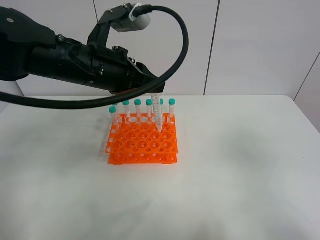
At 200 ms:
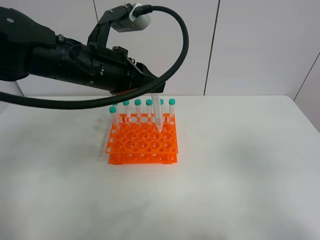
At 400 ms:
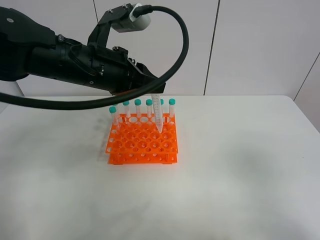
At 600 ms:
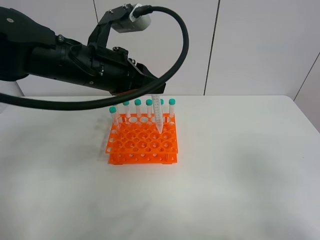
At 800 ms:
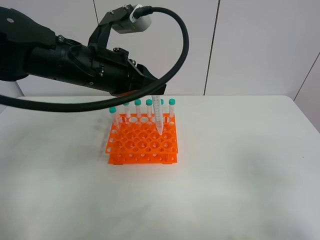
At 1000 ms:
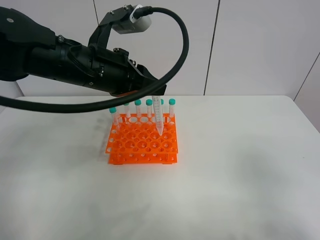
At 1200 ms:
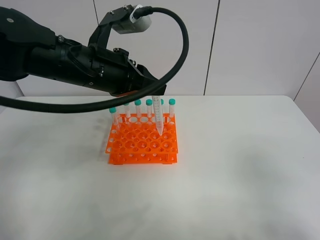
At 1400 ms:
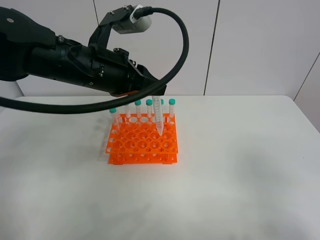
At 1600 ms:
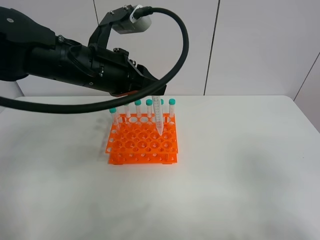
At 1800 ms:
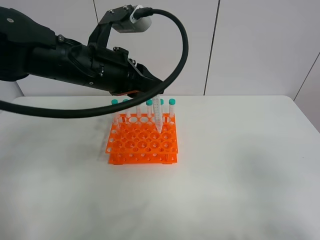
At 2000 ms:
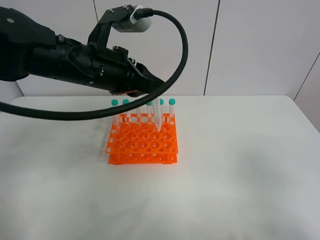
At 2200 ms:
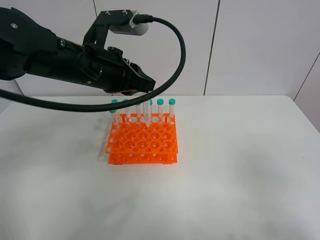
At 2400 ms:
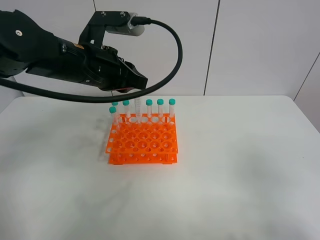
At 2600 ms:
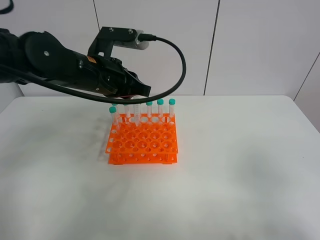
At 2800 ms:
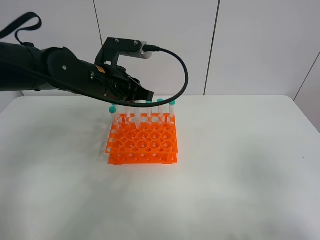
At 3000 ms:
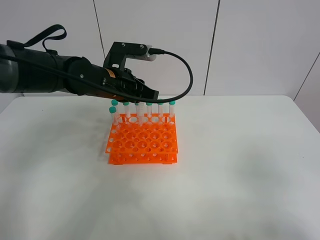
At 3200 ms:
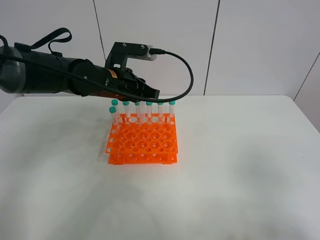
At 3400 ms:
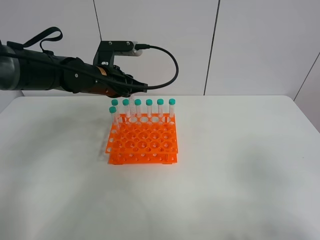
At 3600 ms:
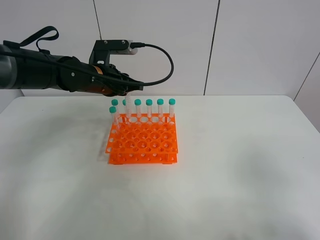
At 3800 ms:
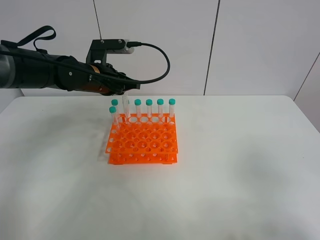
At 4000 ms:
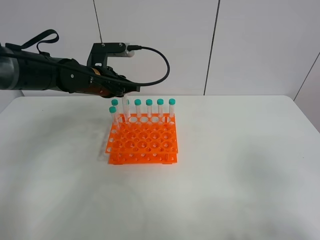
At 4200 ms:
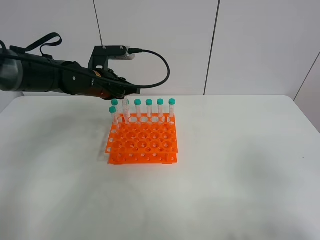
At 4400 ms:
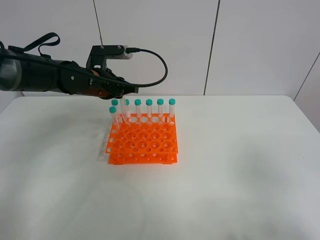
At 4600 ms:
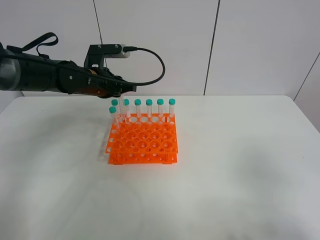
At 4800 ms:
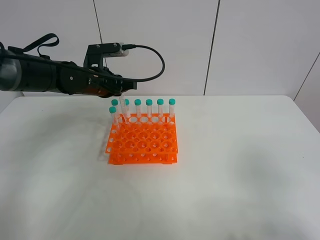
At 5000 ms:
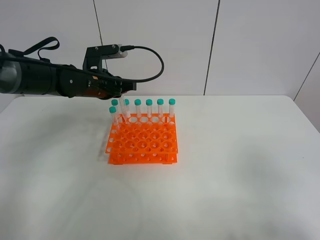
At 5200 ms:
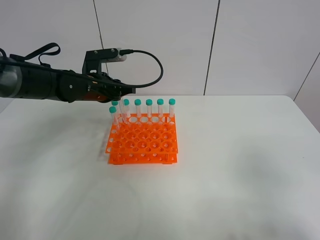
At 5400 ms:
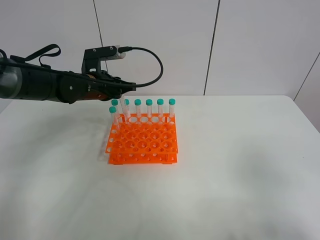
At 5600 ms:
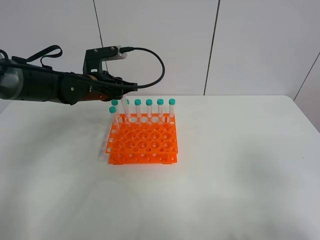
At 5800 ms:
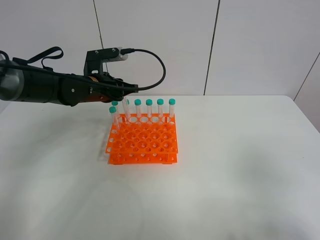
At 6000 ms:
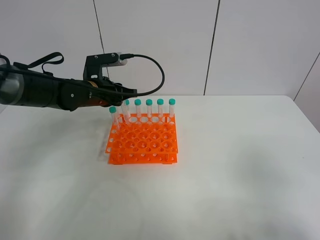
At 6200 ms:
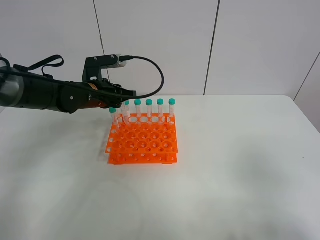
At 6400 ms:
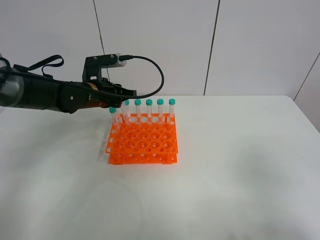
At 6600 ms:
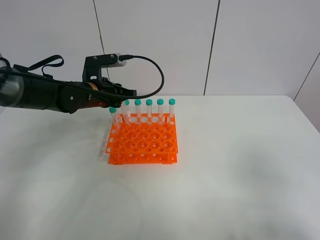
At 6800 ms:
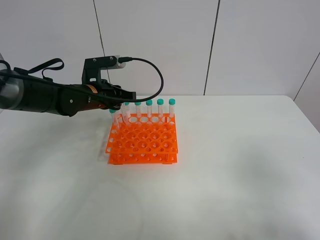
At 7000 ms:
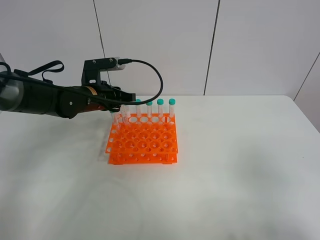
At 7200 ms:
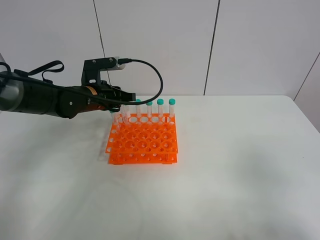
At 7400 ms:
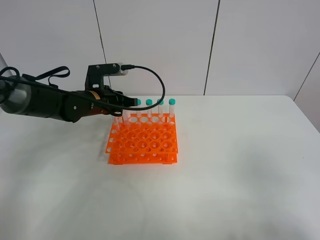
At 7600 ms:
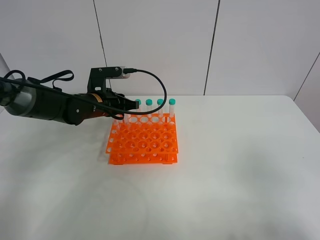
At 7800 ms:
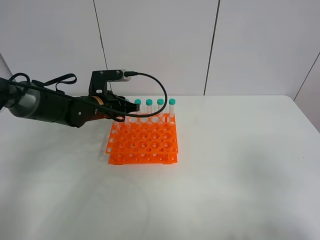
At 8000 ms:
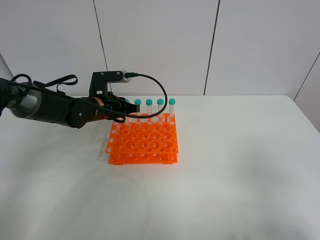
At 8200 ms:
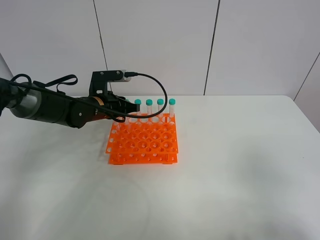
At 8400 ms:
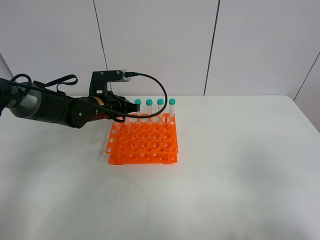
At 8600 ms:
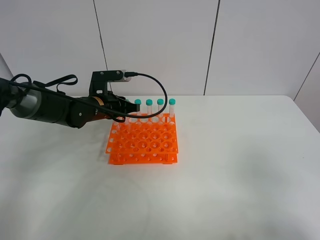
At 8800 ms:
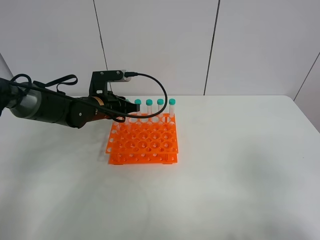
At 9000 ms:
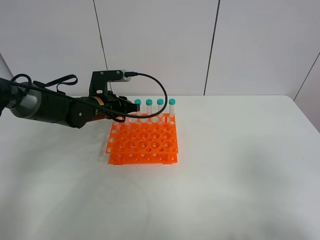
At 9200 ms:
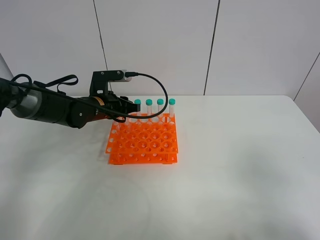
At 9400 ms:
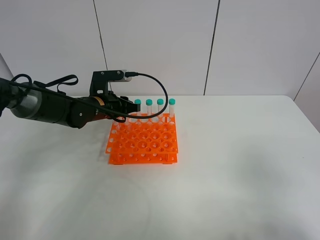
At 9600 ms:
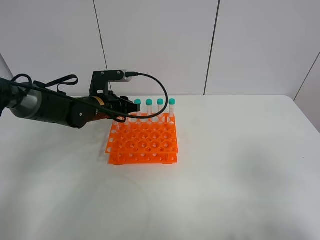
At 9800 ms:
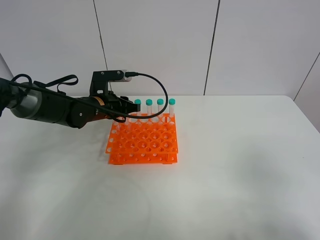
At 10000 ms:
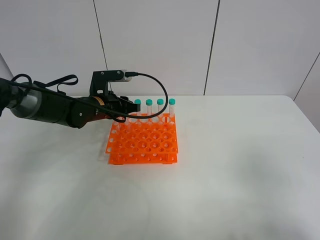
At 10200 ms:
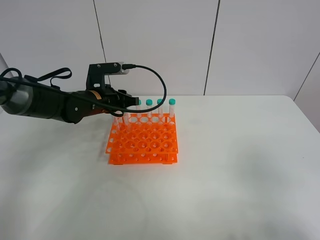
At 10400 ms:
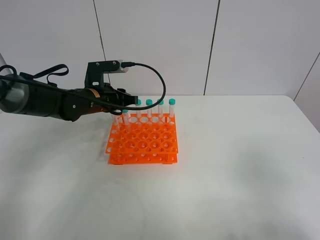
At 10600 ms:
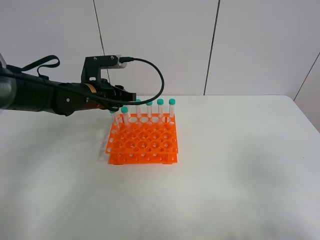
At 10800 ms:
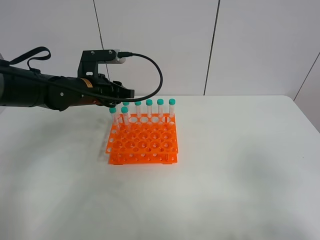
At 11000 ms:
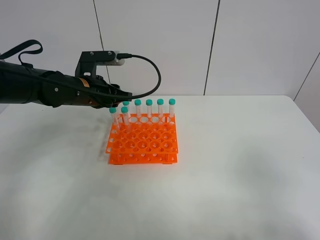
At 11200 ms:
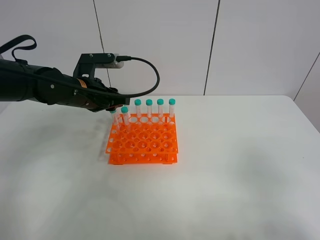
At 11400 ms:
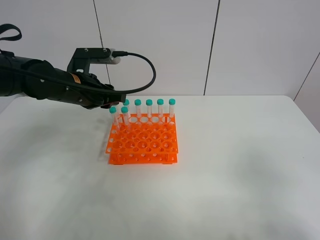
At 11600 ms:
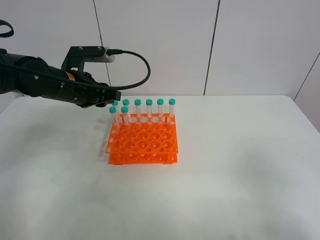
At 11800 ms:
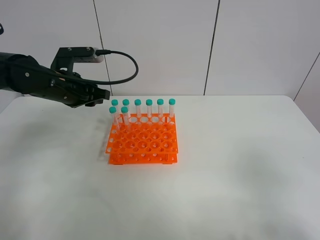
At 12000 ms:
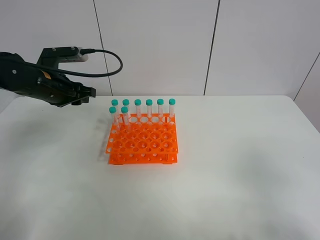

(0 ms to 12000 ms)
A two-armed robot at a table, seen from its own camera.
Task of the whole recording: Put the test tube on the table back onto the test tube rack.
Step, 0 ms - 11800 ms: Place the test tube on the test tube rack with the left gripper.
0 ms - 1600 ms: The right gripper goes some 5 cm downward.
1600 ms - 3000 ms: The left gripper travels forward and downward by about 10 cm.
3000 ms - 4400 ms: The left gripper travels to the left by about 5 cm.
4400 ms - 7600 ms: The grippers move only a little.
7600 ms - 9000 ms: The left gripper opens up.
9000 ms - 10400 ms: The grippers stay close to where they were, moving slightly.
10400 ms - 12000 ms: The left gripper travels to the left and upward by about 10 cm.

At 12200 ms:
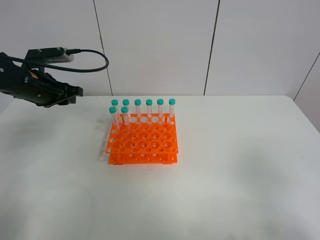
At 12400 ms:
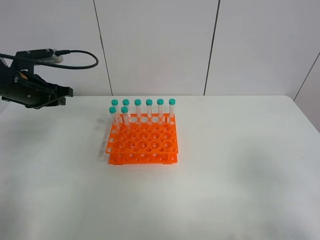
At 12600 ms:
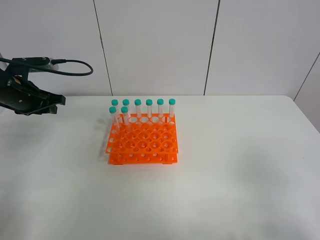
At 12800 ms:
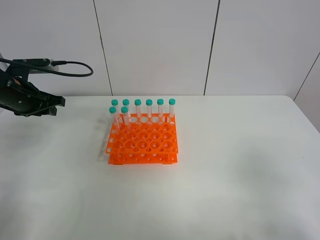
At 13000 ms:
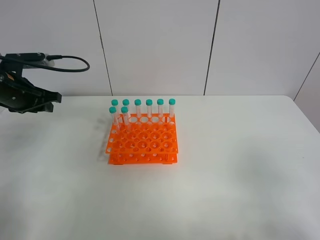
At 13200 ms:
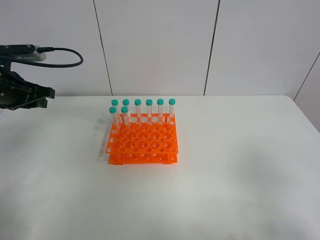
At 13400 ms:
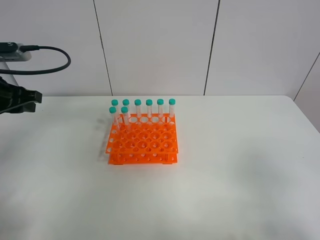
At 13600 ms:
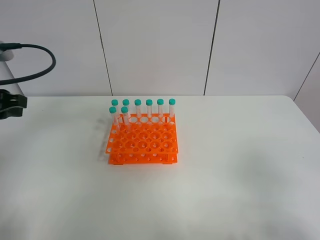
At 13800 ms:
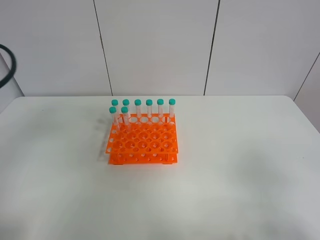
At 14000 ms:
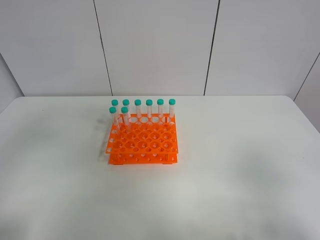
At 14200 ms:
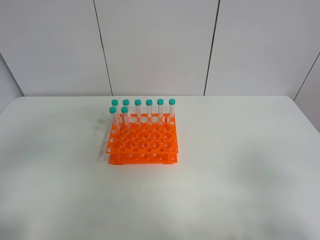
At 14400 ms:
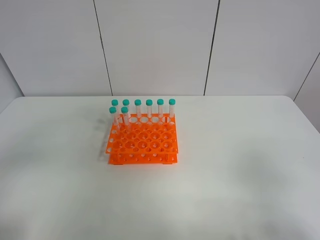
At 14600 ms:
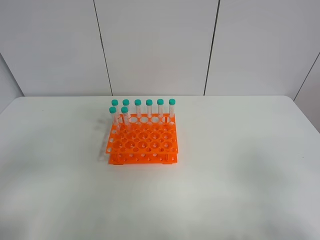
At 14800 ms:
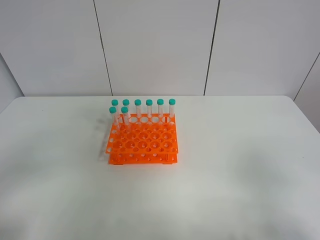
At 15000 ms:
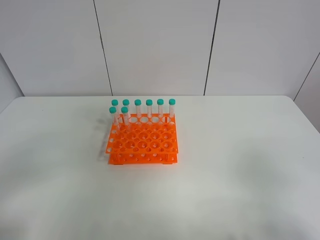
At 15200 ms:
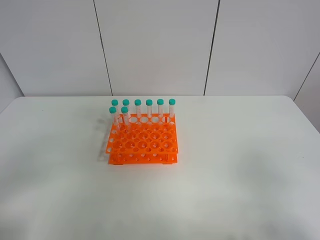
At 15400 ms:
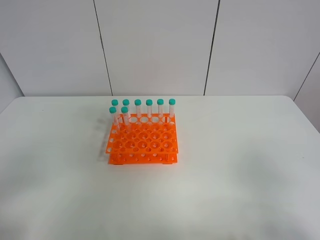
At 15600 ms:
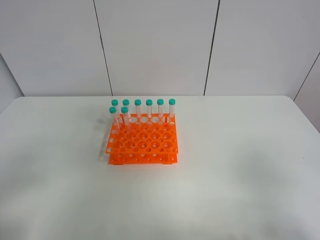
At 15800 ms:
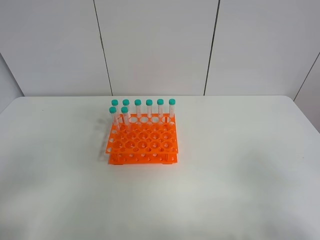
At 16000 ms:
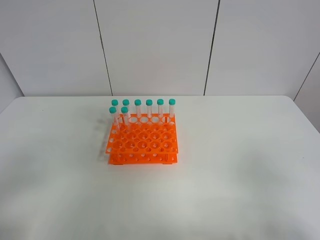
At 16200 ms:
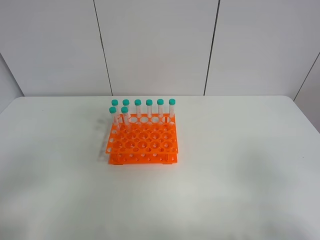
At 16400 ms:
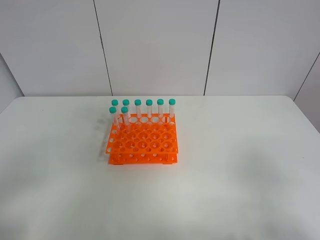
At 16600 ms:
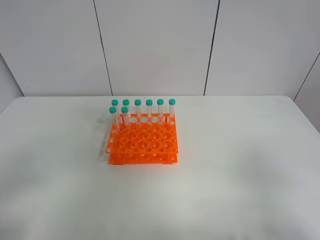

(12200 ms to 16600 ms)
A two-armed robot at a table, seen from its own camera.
Task of the whole recording: Put the test tube on the table back onto the test tube rack.
12200 ms - 13600 ms: The left gripper moves backward and upward, roughly 15 cm.
13600 ms - 15200 ms: The left gripper heads backward, covering some 20 cm.
